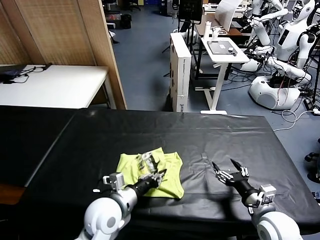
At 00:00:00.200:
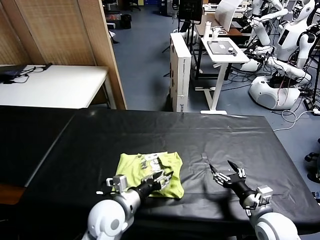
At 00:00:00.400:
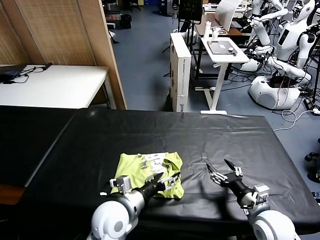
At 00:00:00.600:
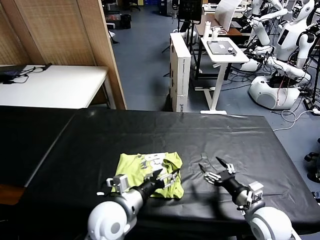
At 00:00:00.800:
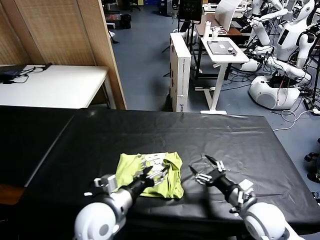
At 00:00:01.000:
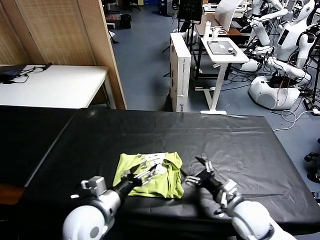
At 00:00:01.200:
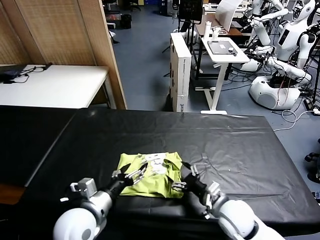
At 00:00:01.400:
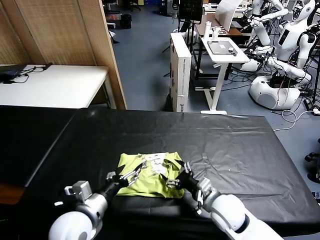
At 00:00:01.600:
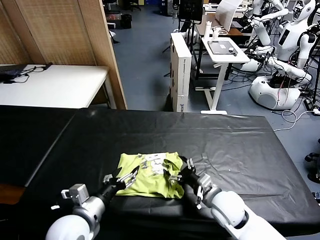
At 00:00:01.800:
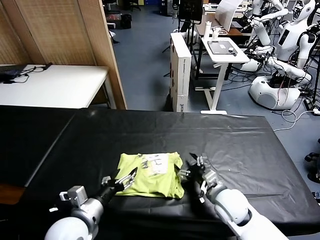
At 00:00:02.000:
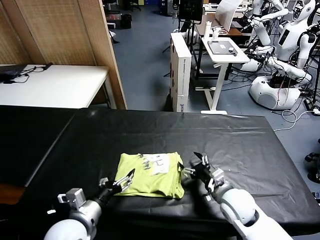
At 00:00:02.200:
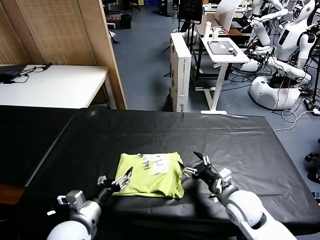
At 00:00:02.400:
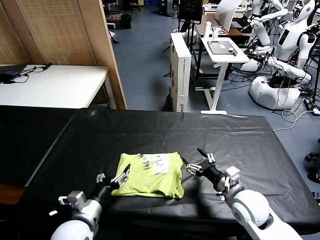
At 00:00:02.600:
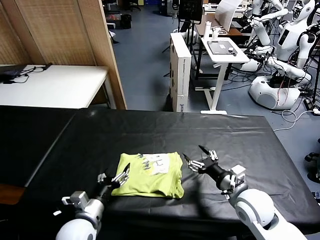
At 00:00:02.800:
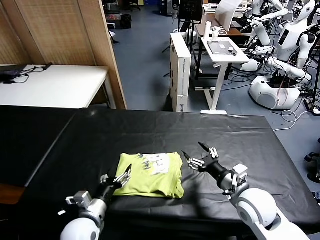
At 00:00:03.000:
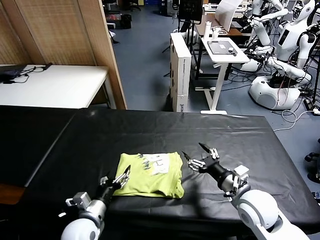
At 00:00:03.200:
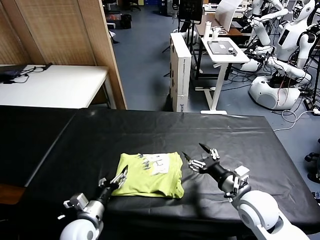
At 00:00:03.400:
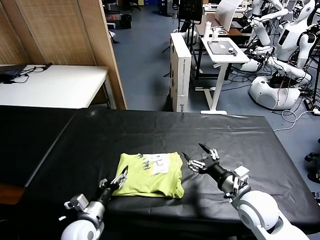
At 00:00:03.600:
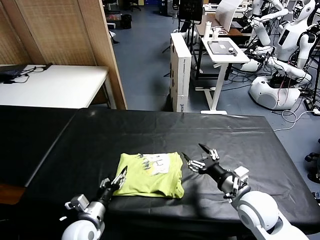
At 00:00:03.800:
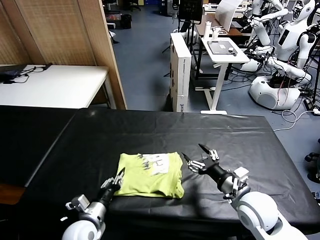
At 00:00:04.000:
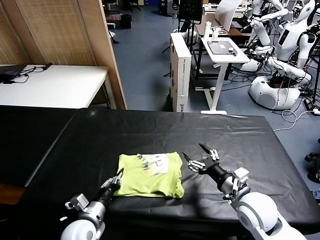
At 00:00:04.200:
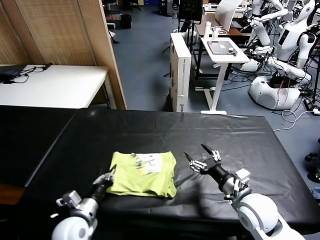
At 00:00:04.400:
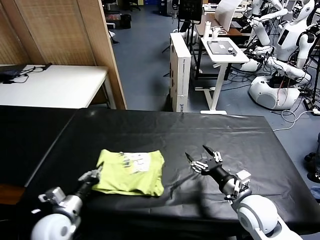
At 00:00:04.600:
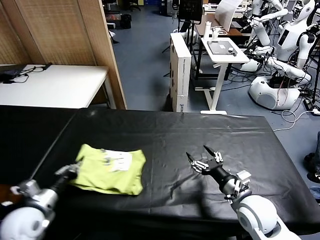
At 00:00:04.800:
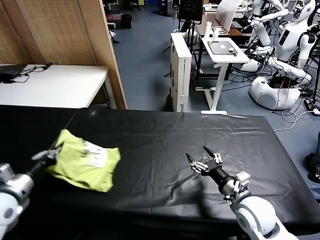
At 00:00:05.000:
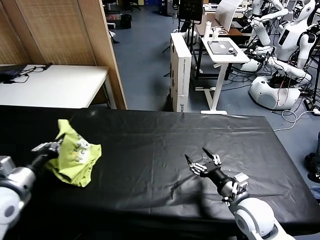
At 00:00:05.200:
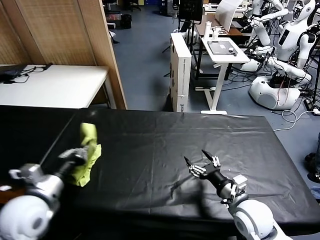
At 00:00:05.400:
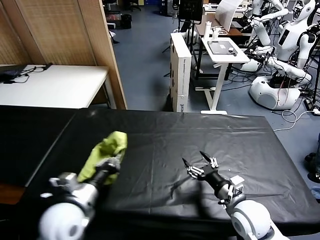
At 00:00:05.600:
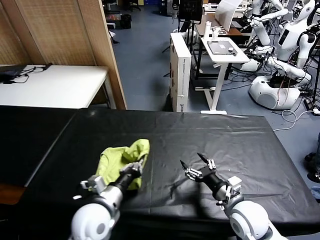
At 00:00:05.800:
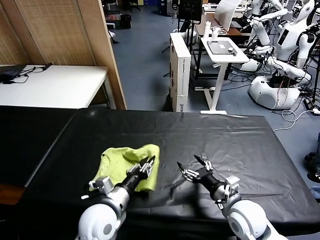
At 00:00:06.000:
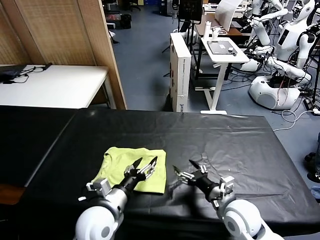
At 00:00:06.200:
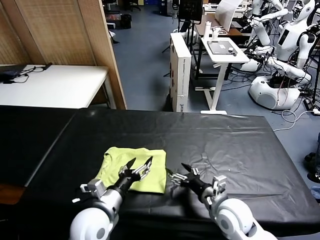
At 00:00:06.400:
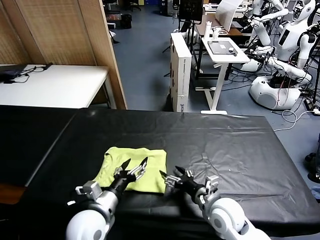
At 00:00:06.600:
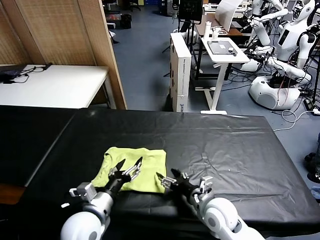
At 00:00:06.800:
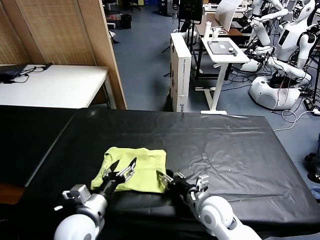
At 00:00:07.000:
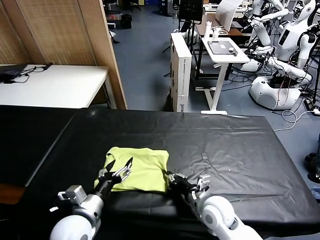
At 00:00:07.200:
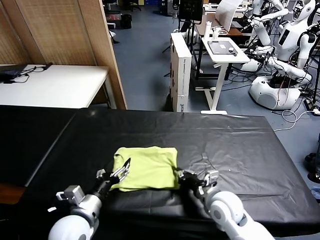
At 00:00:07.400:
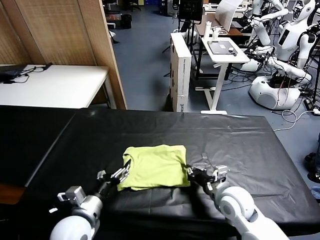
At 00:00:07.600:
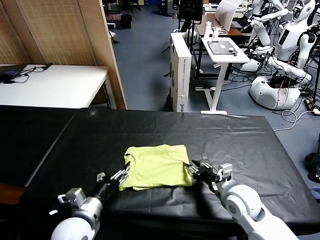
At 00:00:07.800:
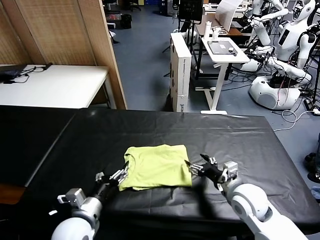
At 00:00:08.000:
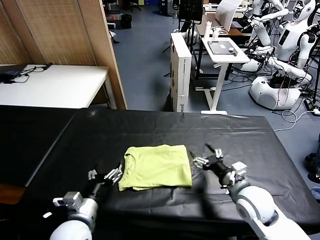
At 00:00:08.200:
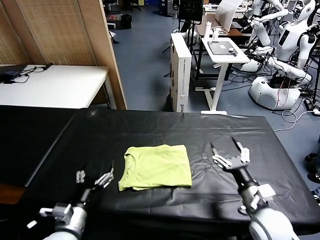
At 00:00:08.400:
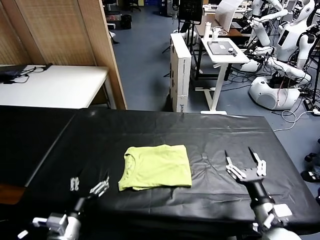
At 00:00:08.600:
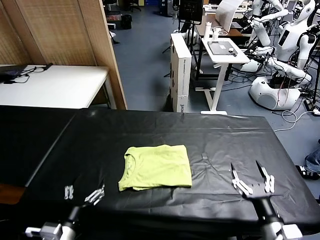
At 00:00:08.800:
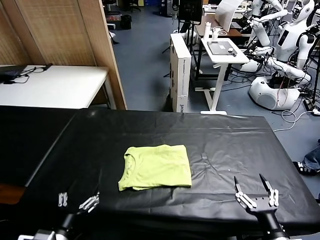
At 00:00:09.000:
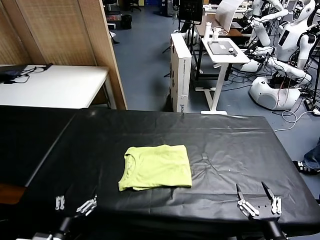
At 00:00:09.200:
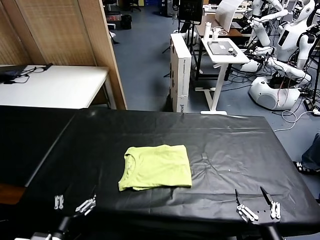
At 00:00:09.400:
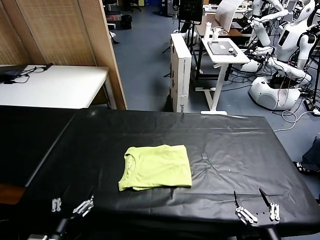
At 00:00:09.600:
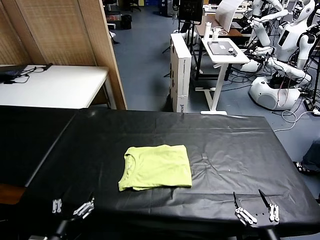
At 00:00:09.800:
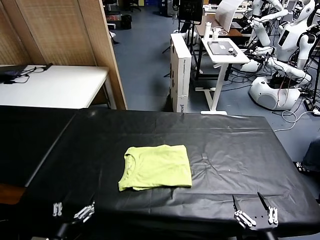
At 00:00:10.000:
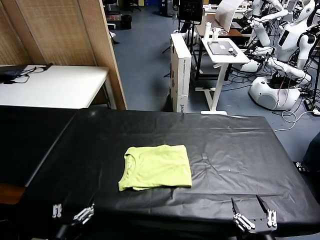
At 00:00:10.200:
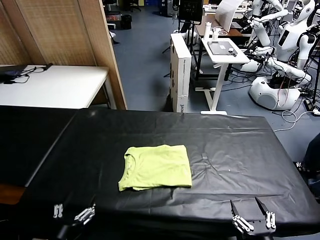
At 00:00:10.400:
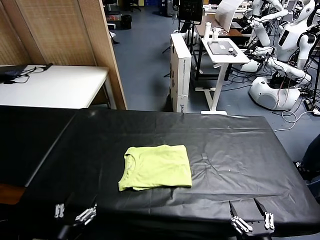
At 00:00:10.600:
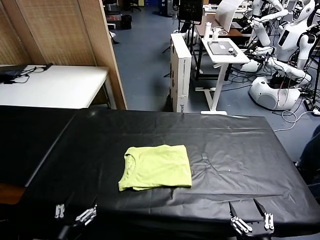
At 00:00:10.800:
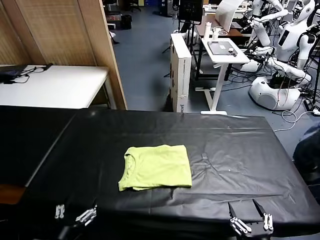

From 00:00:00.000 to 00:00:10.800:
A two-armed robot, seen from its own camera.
Task of the whole recording: fold and organize the clothes.
Step, from 00:00:00.800 to 00:00:06.000: Flip the folded clothes over with left gripper.
Step, from 00:00:06.200 to 00:00:07.800: Drag the clothes to the center of the table.
From 00:00:00.000 to 00:00:01.600: The right gripper heads to the left and forward, covering roughly 15 cm. The left gripper moves to the left and backward, some 10 cm, and opens its fingers.
From 00:00:01.600 to 00:00:03.000: The left gripper travels downward by roughly 10 cm, while the right gripper is displaced upward and to the right by approximately 10 cm.
From 00:00:03.000 to 00:00:04.600: The left gripper is displaced to the left and upward by approximately 20 cm, and closes.
From 00:00:04.600 to 00:00:06.200: The right gripper moves to the left, roughly 5 cm, while the left gripper shifts about 20 cm to the right, and opens.
From 00:00:06.200 to 00:00:07.800: The right gripper goes approximately 5 cm to the right, and closes, then opens again. The left gripper moves about 5 cm.
From 00:00:07.800 to 00:00:09.200: The left gripper heads backward, covering about 10 cm, while the right gripper shifts approximately 20 cm backward.
From 00:00:09.200 to 00:00:10.800: The grippers stay close to where they were, moving slightly.
